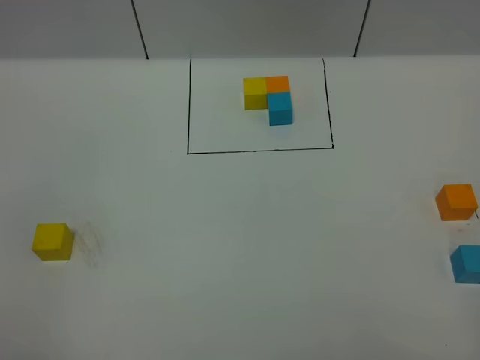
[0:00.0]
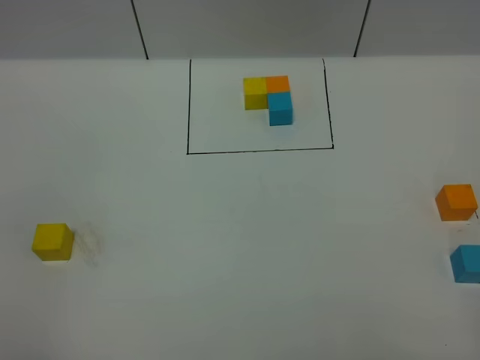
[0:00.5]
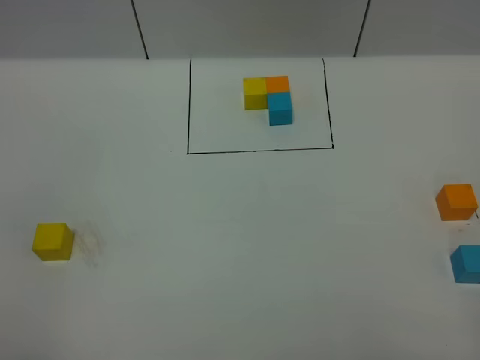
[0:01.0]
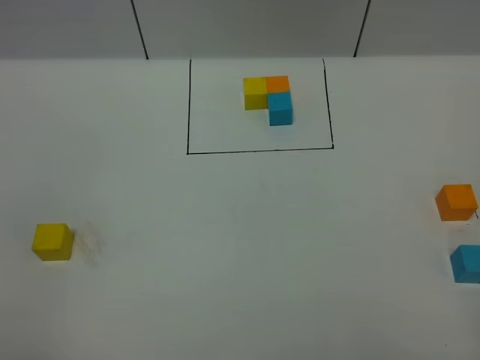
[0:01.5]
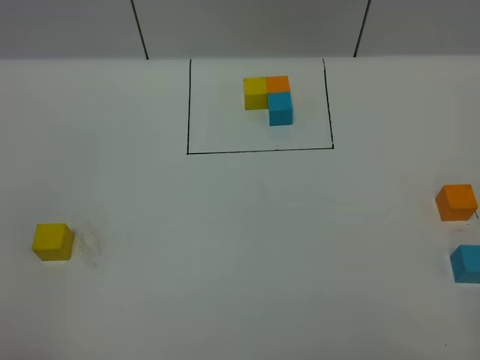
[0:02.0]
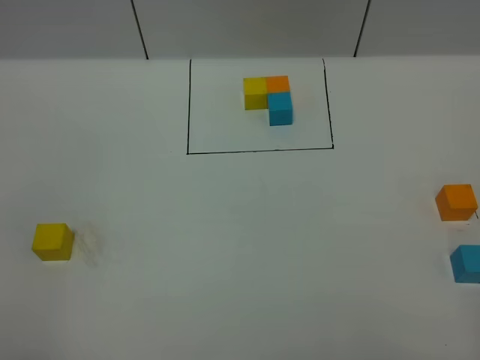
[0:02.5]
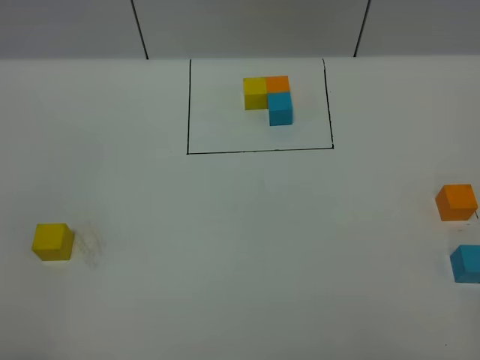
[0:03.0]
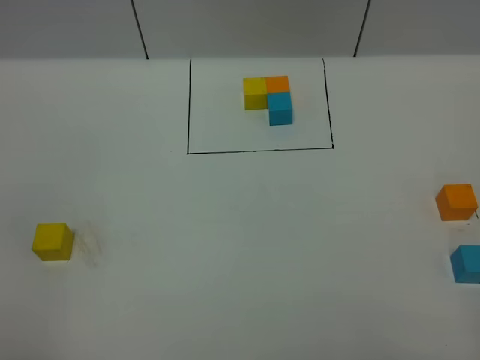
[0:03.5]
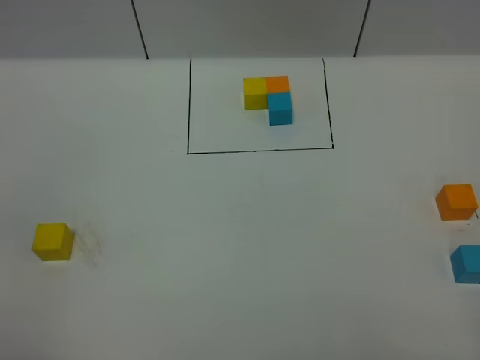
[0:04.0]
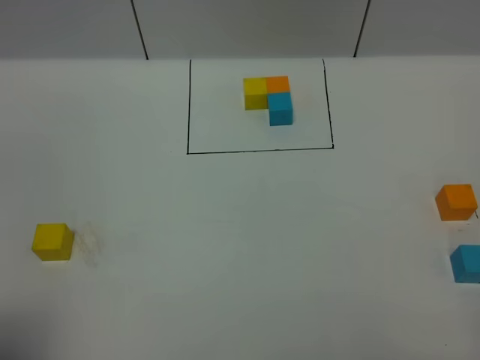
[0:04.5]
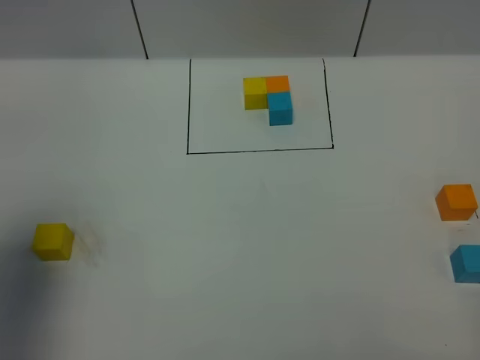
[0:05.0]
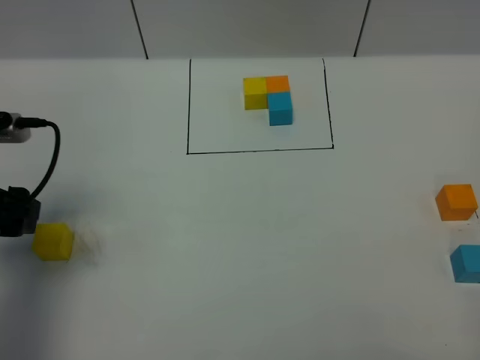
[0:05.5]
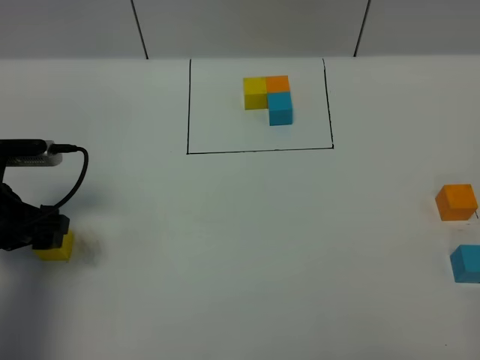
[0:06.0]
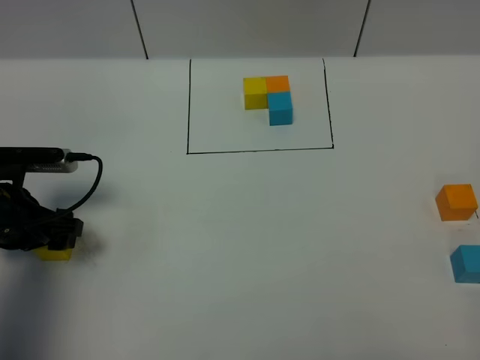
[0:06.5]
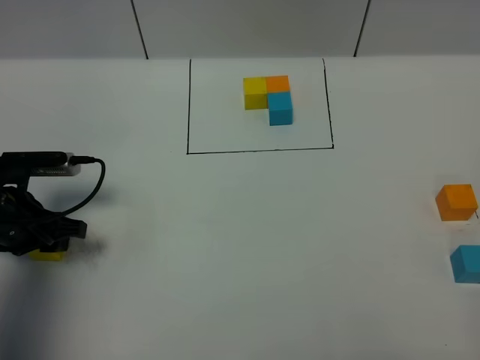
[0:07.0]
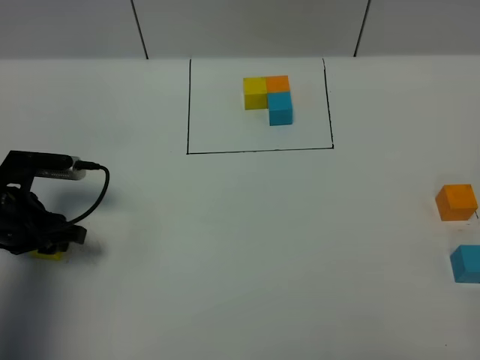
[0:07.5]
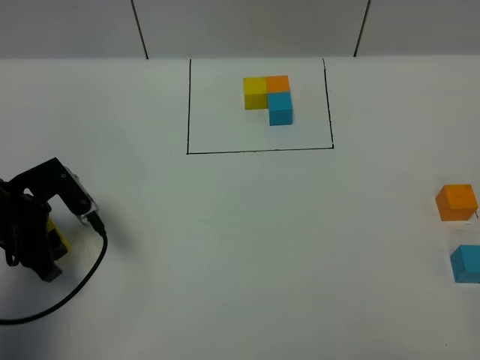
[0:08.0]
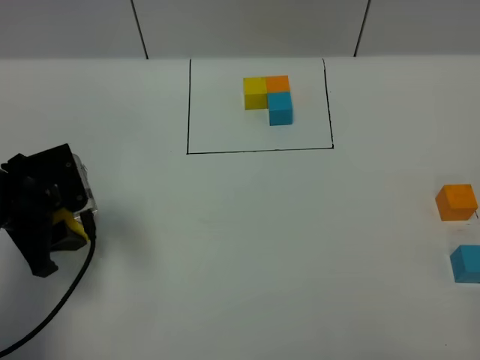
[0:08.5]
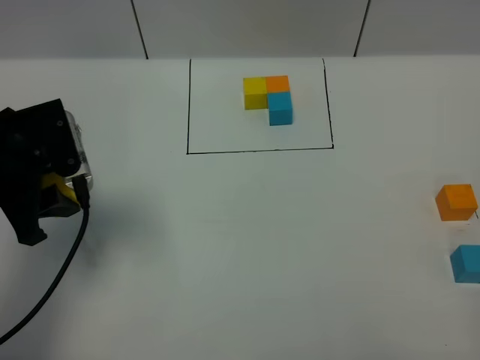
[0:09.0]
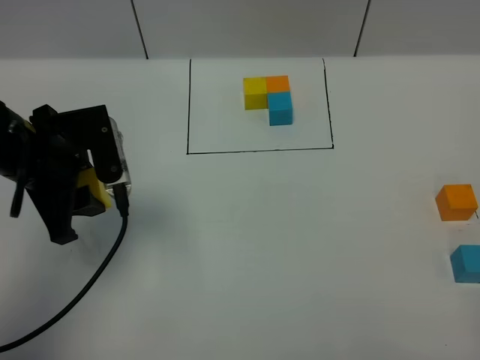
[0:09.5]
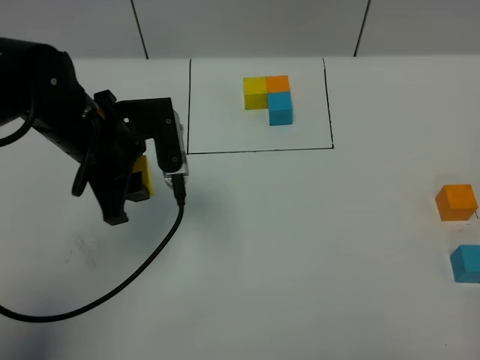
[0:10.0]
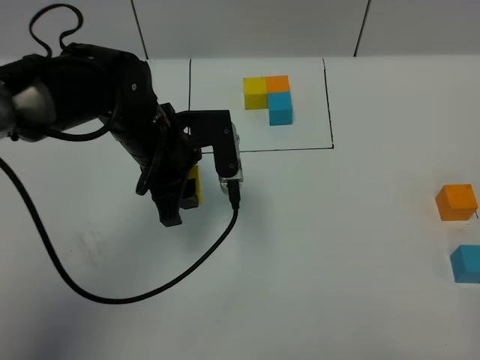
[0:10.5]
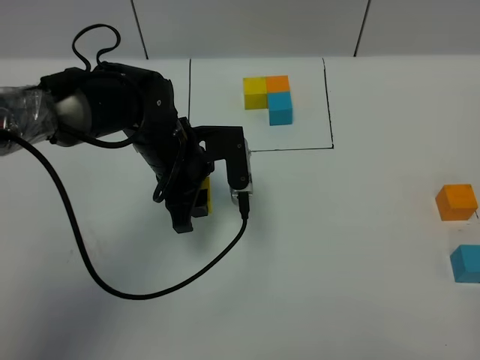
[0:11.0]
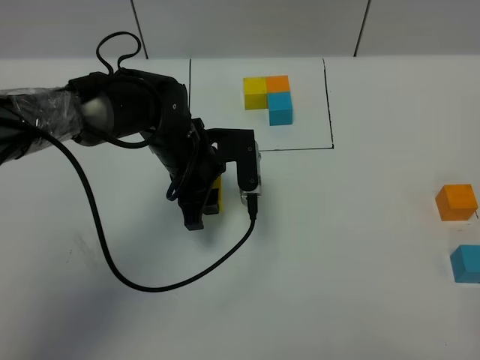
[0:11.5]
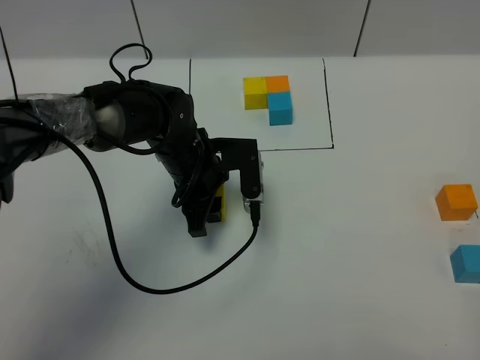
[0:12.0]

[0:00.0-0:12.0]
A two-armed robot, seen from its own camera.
Task of the whole recording: According to the building block template in front, assemble the scattered blocks together.
0:00.0 to 0:02.0: Both grippers stay about where they are.
0:04.0 to 0:06.0: The left gripper moves forward and downward, some 30 cm.
0:06.0 to 0:08.0: The left gripper closes.
0:08.0 to 0:10.0: The left gripper heads to the right and upward, covering roughly 15 cm.
0:10.0 to 0:12.0: The left gripper shifts approximately 15 cm downward and to the right.

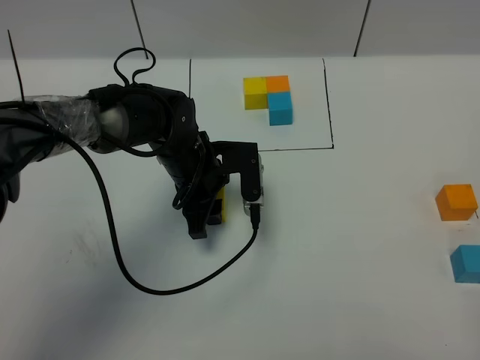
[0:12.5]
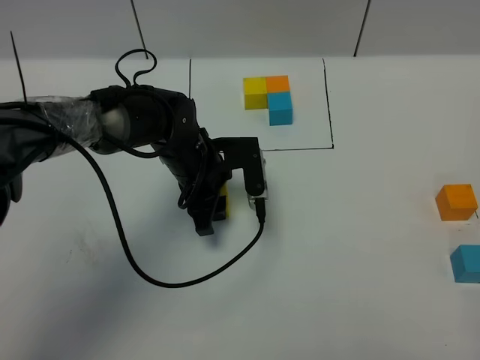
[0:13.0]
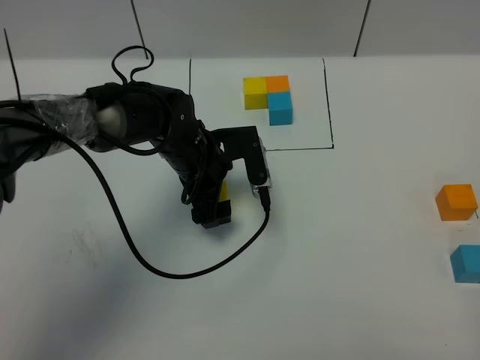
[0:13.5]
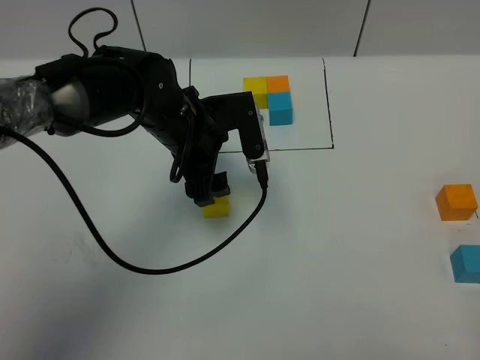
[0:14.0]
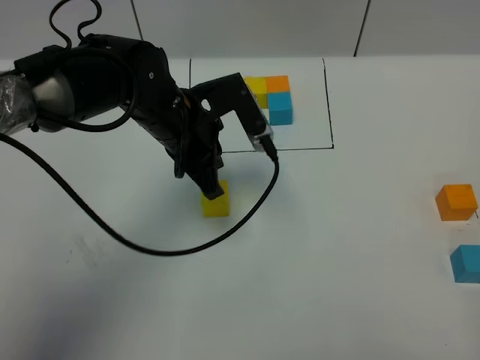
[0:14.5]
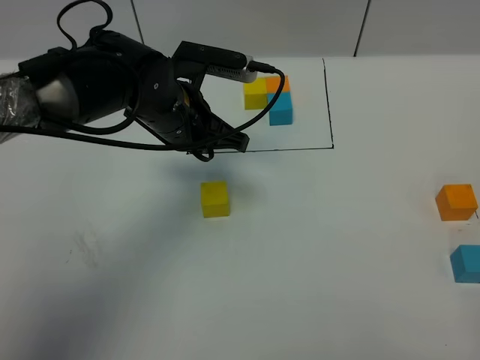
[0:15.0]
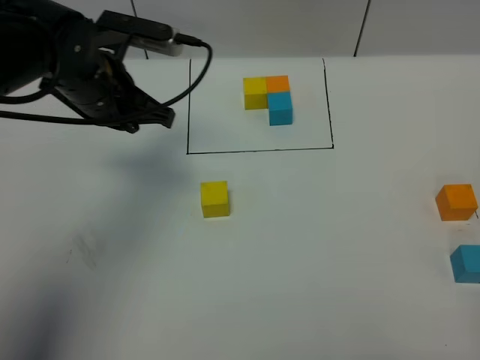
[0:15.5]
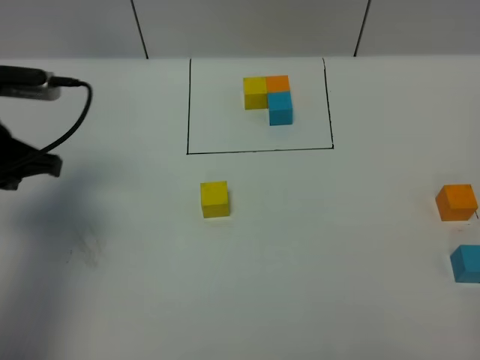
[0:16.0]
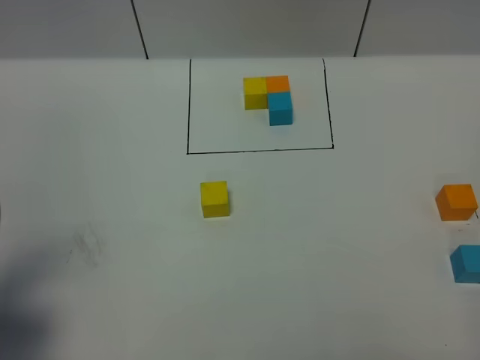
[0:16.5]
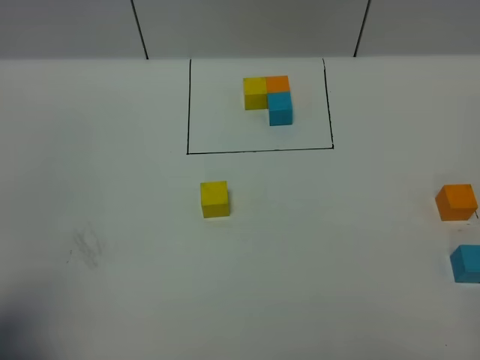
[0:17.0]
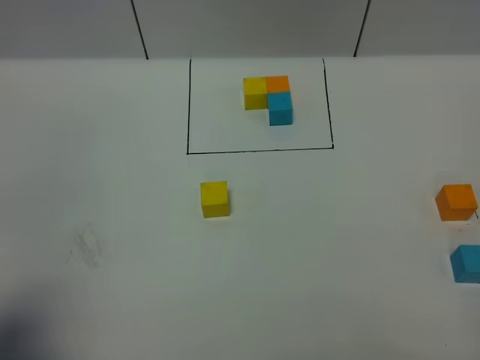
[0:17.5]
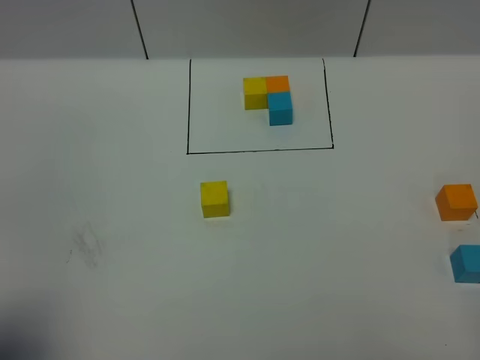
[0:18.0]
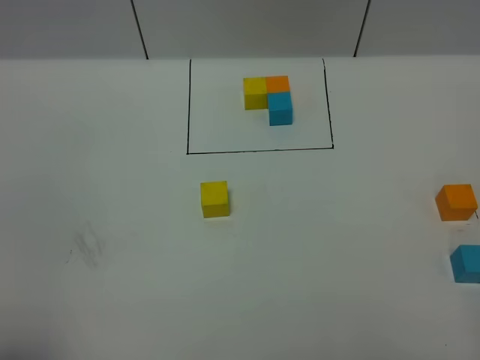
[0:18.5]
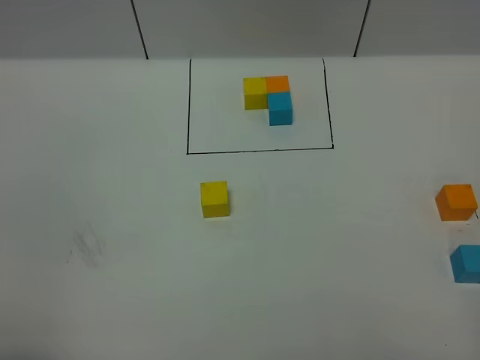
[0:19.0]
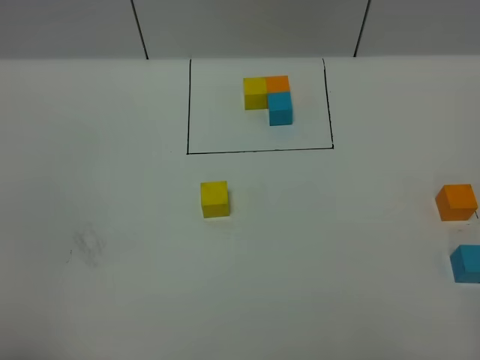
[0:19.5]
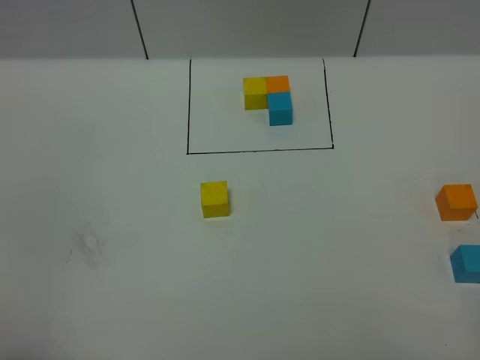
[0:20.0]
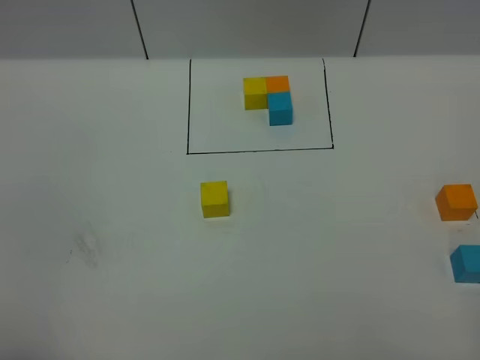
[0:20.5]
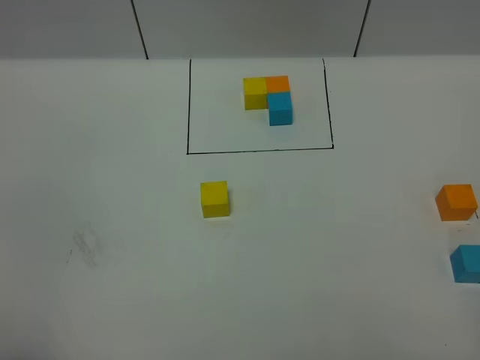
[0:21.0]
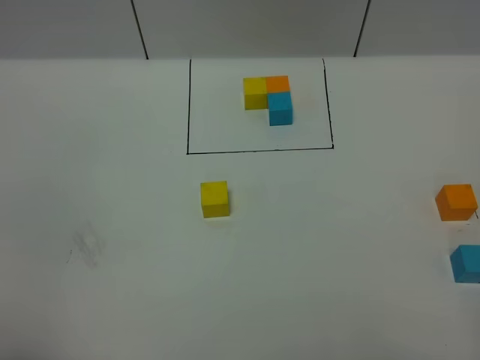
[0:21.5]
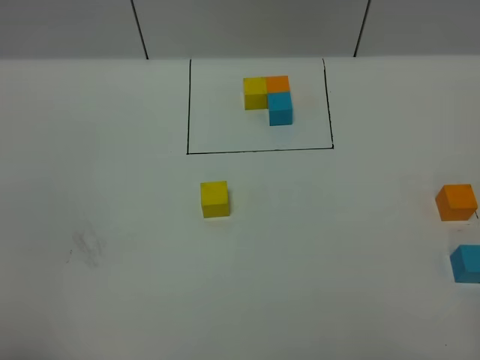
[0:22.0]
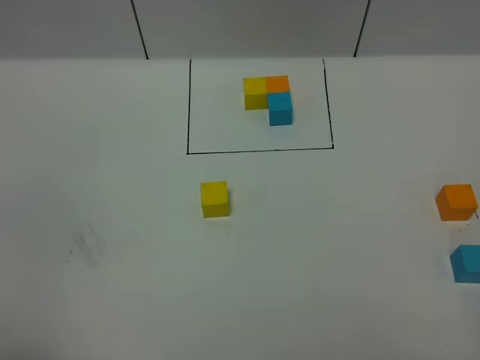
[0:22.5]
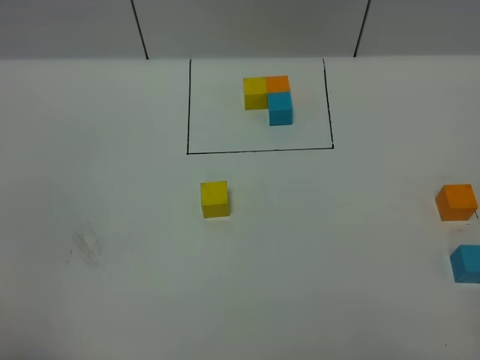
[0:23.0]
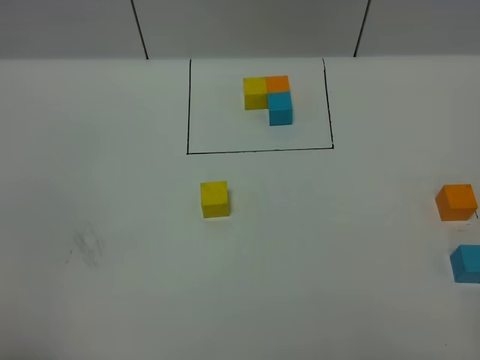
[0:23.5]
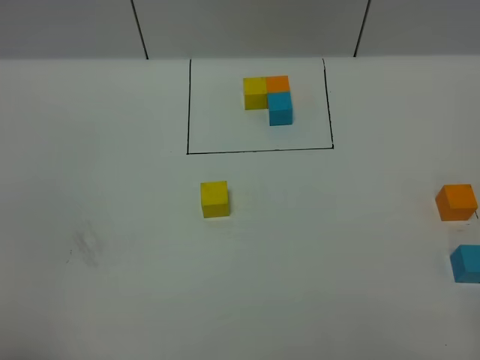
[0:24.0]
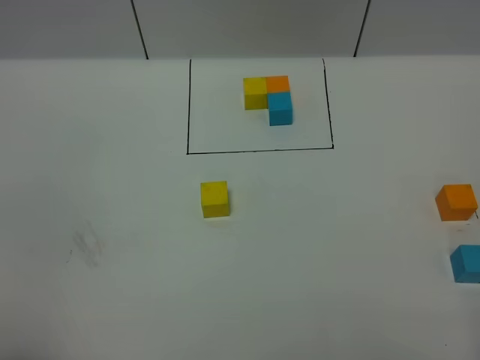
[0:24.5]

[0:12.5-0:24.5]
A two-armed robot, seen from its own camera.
Task of the whole recording: According to the building block template in front, assemble the scattered blocks together.
0:12.5 to 0:14.5: The left gripper shifts roughly 10 cm upward, and closes its fingers.
0:14.5 to 0:16.5: The left gripper goes roughly 30 cm to the left and backward.
0:16.5 to 0:18.5: The left gripper goes roughly 15 cm backward.
0:20.5 to 0:22.5: Both grippers stay about where they are.

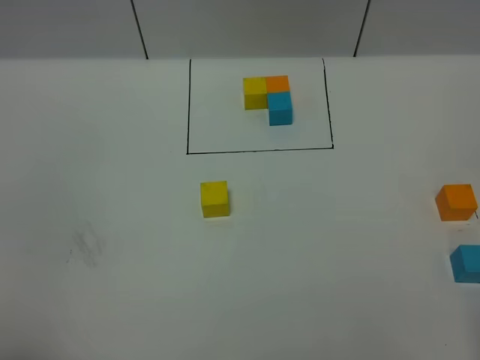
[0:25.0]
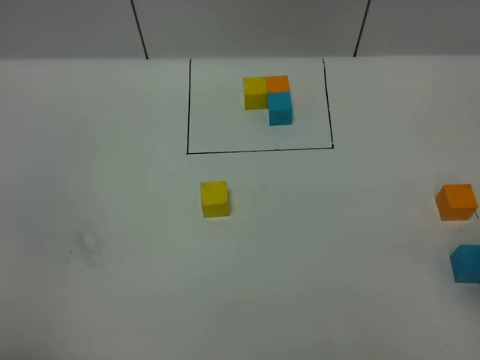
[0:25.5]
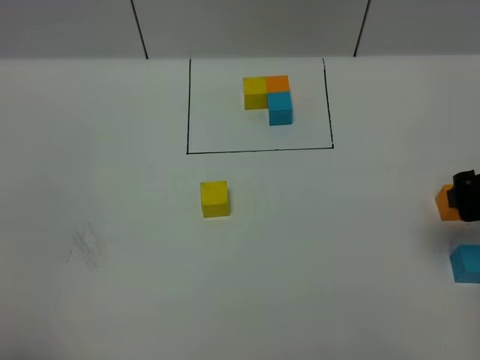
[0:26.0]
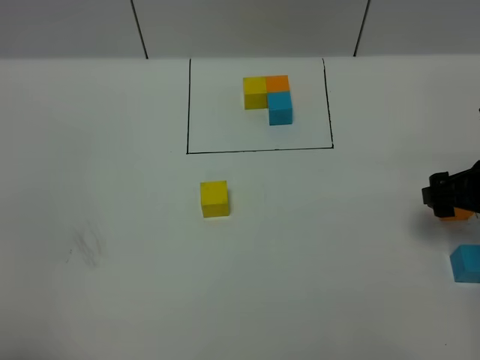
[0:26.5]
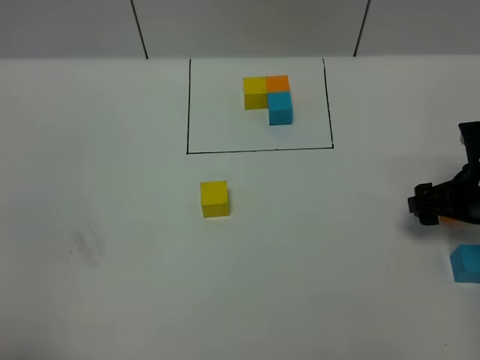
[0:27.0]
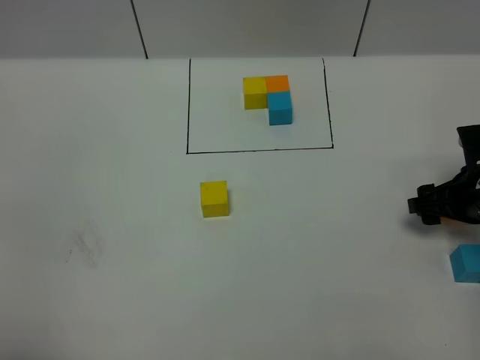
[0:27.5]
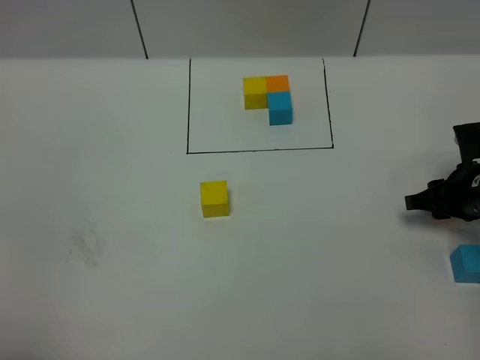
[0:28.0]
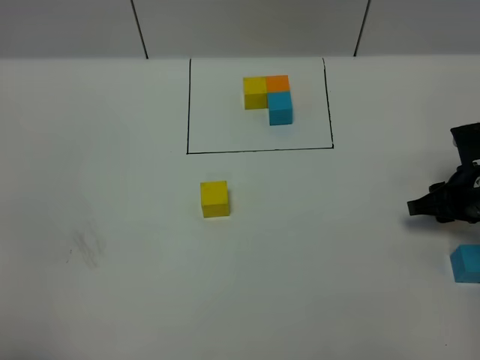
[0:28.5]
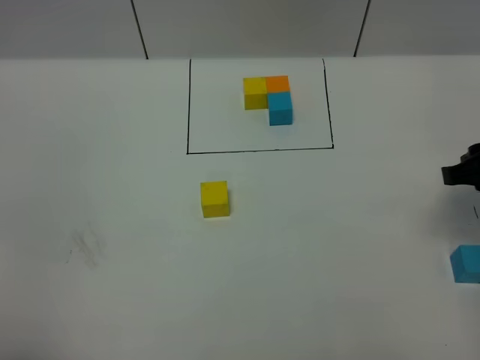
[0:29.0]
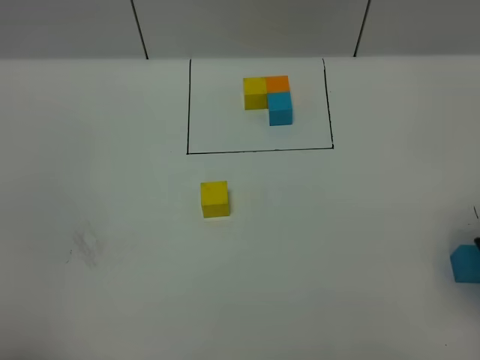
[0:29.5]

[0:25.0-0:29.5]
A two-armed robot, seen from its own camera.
Task of the whole recording: According to the building block template in front, assemble the scattered blocks together.
0:25.0 to 0:27.0: The right gripper is displaced forward and downward by approximately 30 cm.
0:27.0 to 0:29.5: The right gripper travels upward and backward by approximately 20 cm, and closes its fingers.
